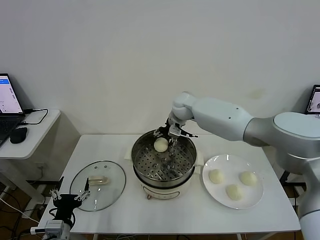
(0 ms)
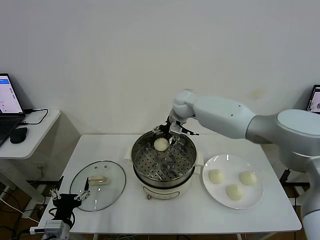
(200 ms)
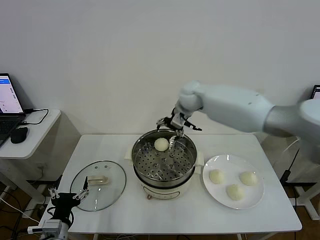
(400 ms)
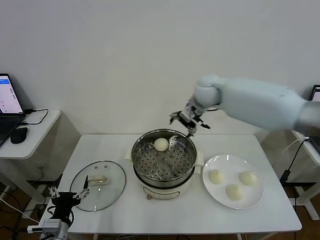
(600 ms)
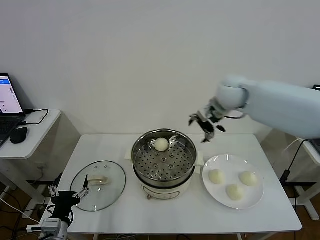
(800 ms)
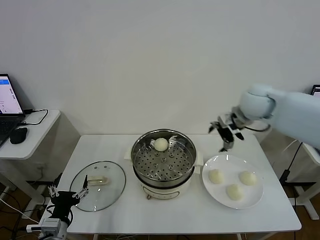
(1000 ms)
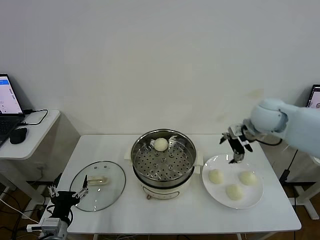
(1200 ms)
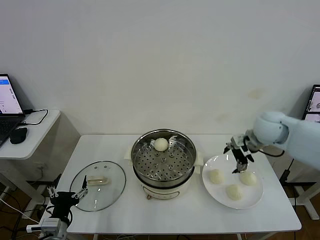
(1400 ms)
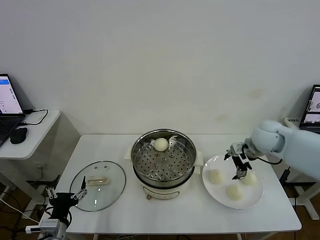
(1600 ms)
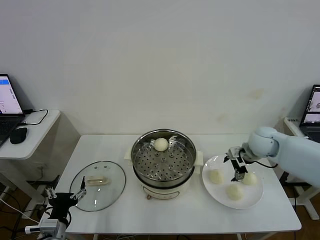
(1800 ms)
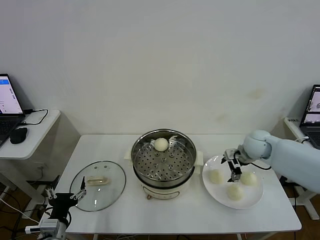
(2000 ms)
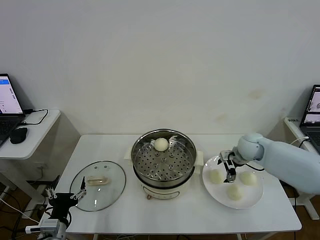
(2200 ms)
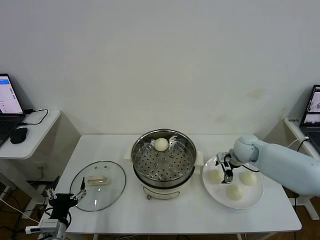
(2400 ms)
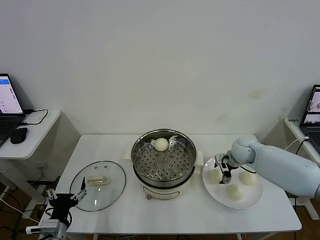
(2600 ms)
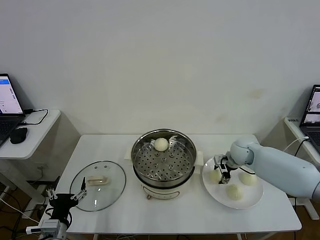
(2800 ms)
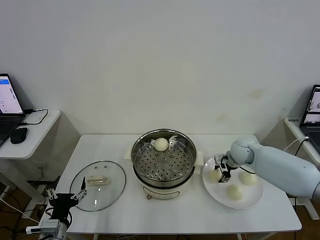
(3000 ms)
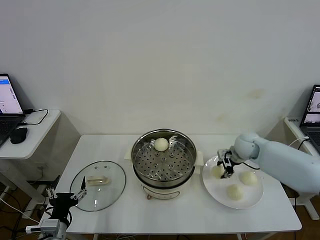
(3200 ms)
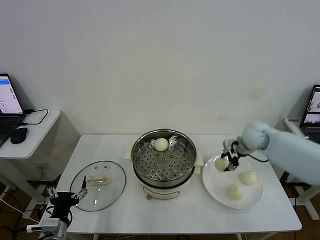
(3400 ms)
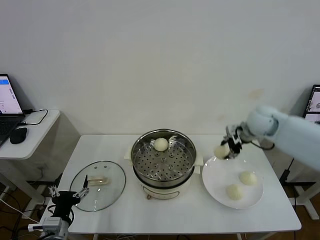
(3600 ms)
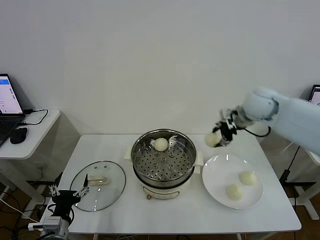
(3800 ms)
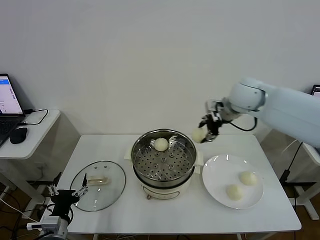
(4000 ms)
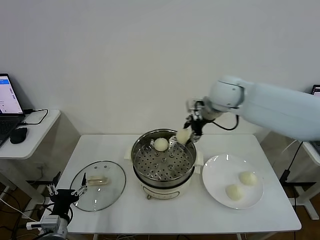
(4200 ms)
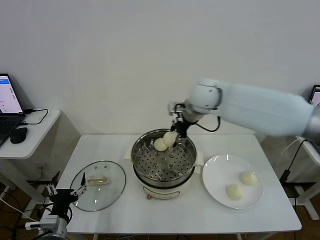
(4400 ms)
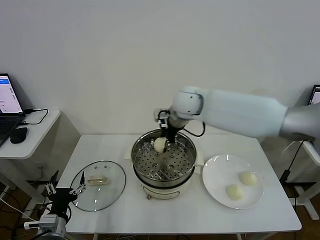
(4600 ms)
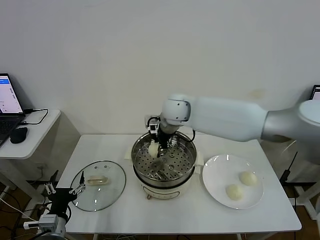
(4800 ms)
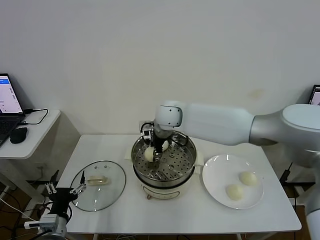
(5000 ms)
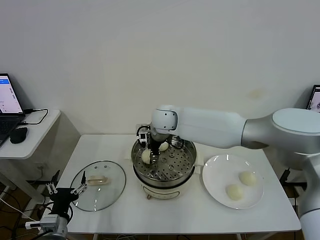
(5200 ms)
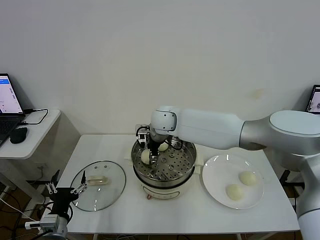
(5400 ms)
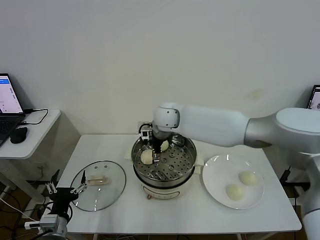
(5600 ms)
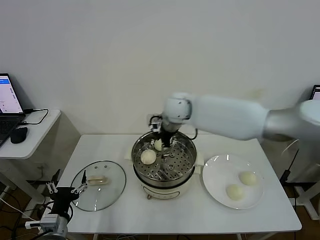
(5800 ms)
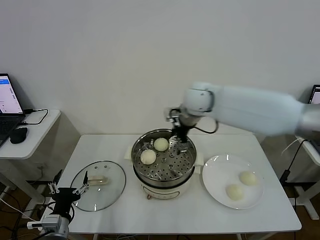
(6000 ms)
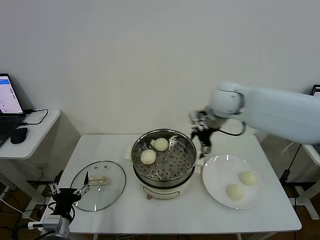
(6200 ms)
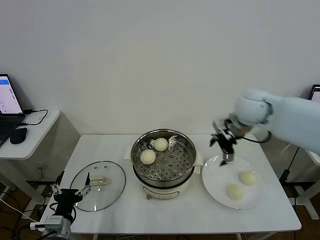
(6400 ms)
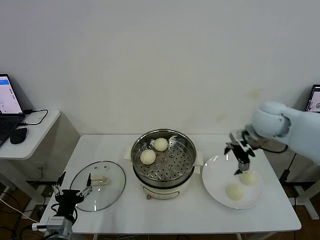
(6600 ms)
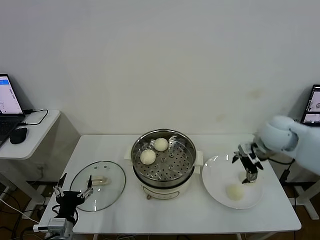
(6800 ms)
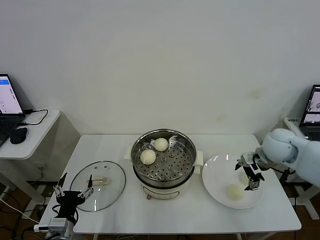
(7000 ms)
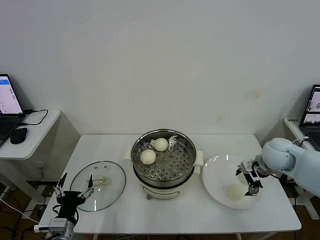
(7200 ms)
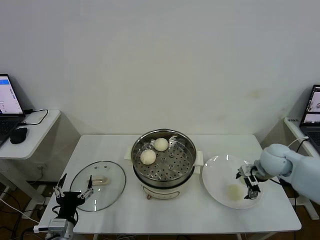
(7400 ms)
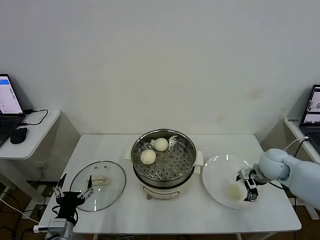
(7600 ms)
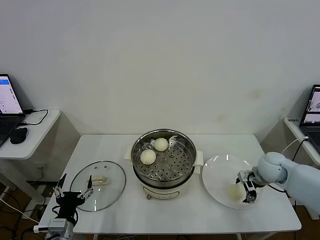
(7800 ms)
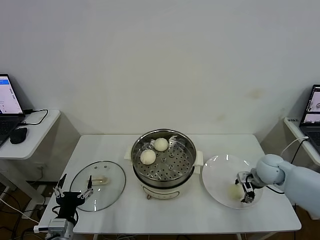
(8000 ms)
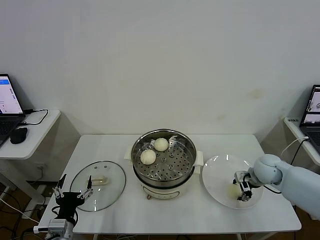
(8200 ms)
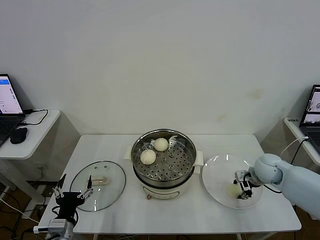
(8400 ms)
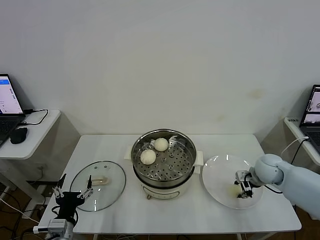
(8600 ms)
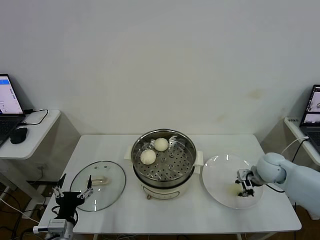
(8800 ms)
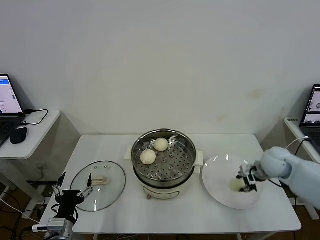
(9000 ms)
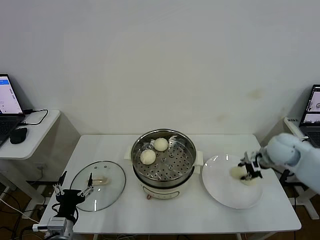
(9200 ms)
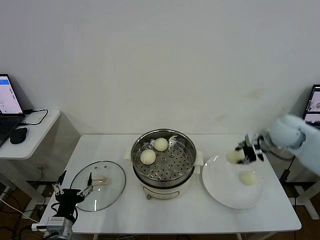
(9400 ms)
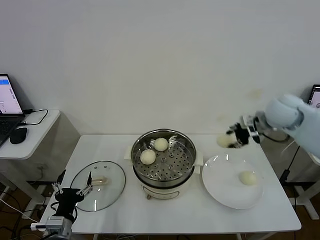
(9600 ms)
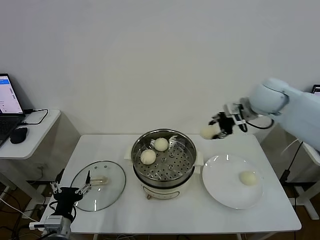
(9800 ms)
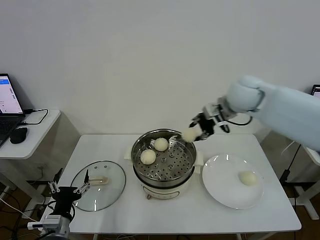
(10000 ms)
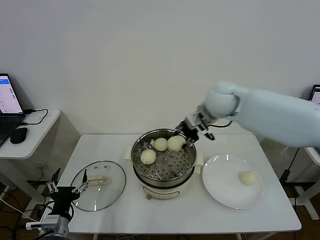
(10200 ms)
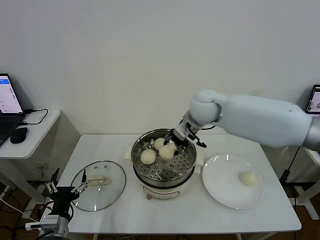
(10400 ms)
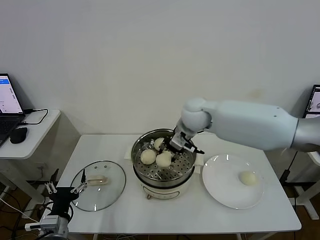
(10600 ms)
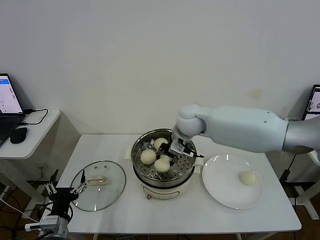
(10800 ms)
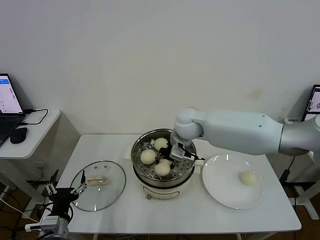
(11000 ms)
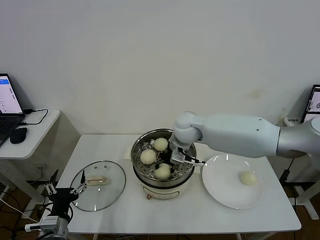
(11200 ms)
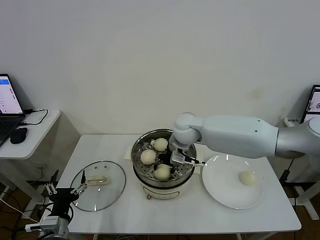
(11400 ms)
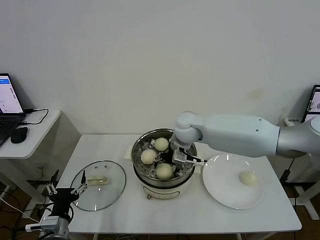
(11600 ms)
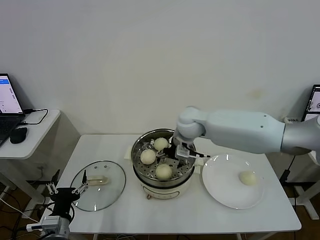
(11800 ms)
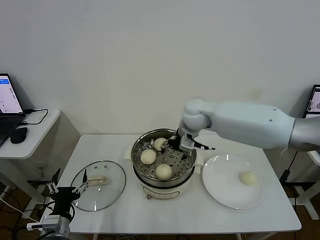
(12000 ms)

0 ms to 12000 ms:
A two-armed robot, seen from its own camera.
Task of the whole recording: take steamed baozi put them in steamer then cover it.
Step, 400 ms to 3000 ms: Grasp the baozi in the plate with right gripper.
Step, 3200 ms to 5600 ms: Place the baozi on the steamer with right gripper.
Step, 5800 ms to 8400 ms: Grasp the baozi in the plate with right gripper.
Step, 8600 ms to 11600 ms: Place the baozi on the steamer with right gripper.
0 ms to 1600 ms: The right gripper travels to the right and backward by approximately 30 cm.
1600 ms to 3000 ms: The right gripper moves downward, about 10 cm, and closes its fingers.
3000 ms to 4400 ms: The right gripper travels upward and to the left by about 30 cm.
4400 ms to 6000 ms: The right gripper goes to the left and returns, about 10 cm each way, and opens.
6000 ms to 7600 ms: The right gripper is displaced to the right, downward and backward by about 35 cm.
7600 ms to 9000 ms: The right gripper closes.
9000 ms to 10400 ms: The right gripper moves to the left and upward, roughly 30 cm.
10400 ms to 12000 ms: The right gripper opens.

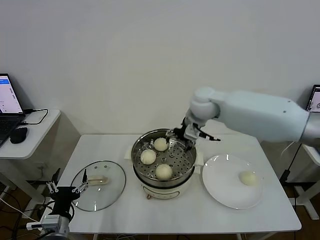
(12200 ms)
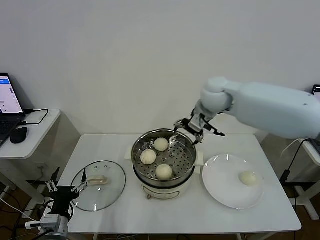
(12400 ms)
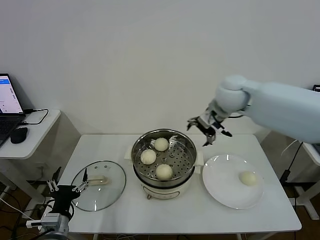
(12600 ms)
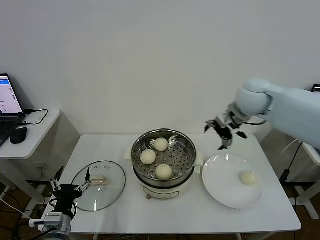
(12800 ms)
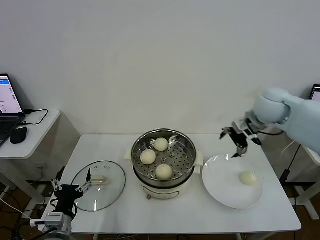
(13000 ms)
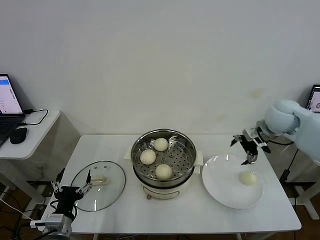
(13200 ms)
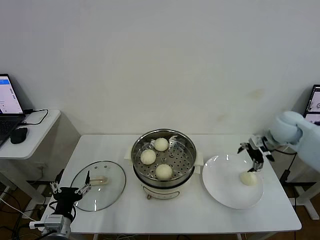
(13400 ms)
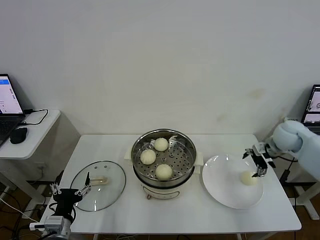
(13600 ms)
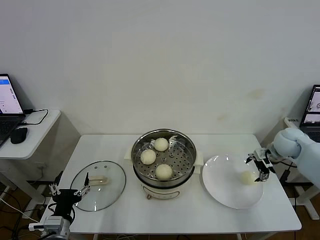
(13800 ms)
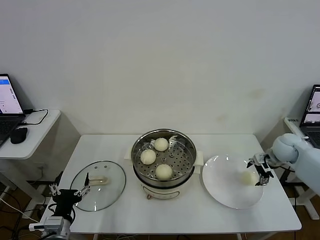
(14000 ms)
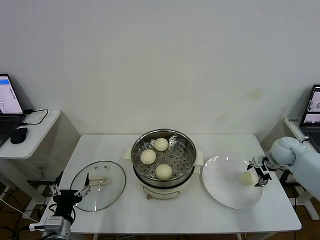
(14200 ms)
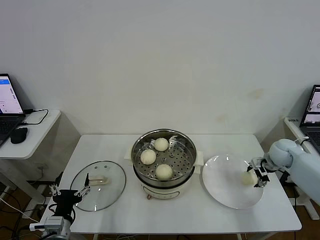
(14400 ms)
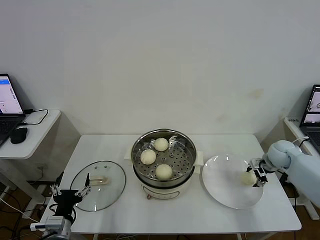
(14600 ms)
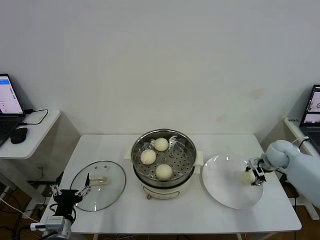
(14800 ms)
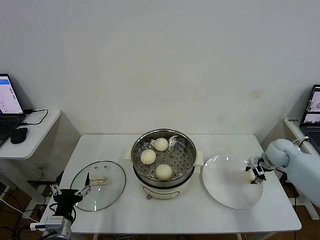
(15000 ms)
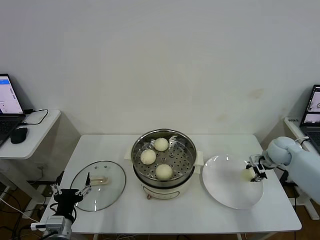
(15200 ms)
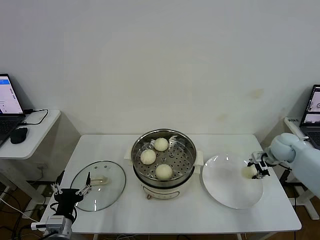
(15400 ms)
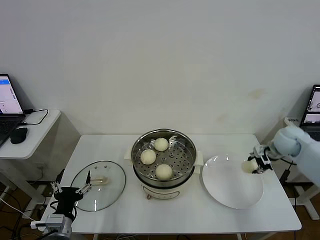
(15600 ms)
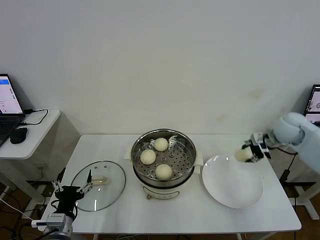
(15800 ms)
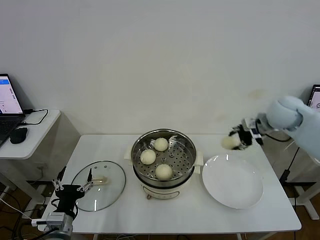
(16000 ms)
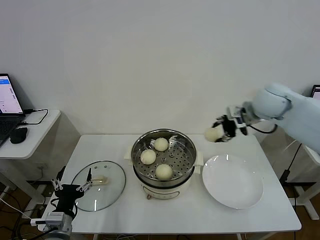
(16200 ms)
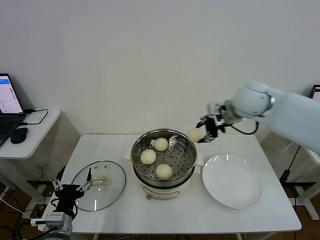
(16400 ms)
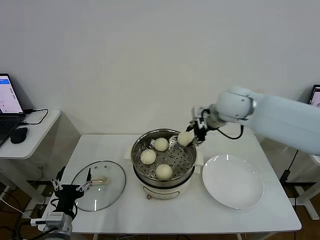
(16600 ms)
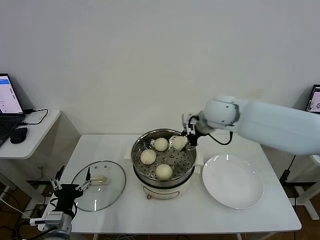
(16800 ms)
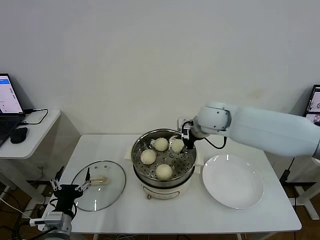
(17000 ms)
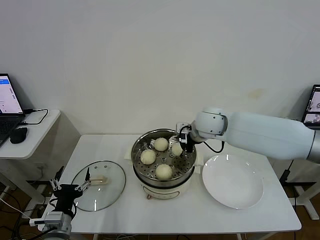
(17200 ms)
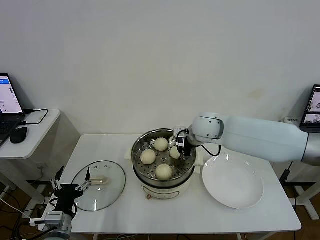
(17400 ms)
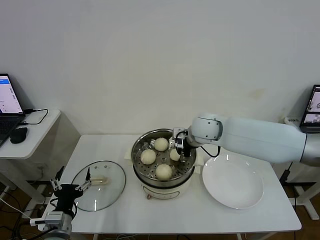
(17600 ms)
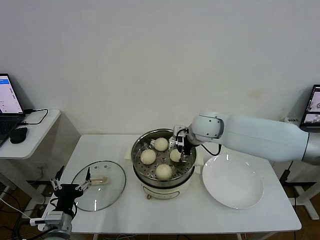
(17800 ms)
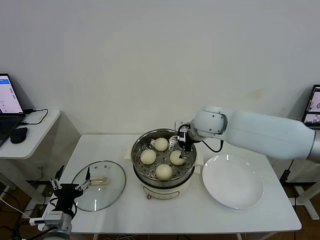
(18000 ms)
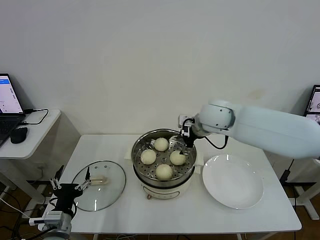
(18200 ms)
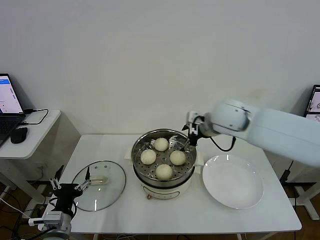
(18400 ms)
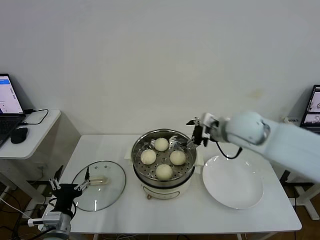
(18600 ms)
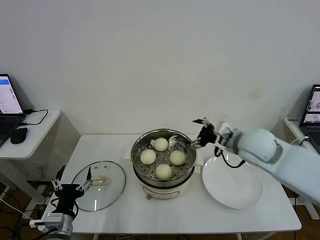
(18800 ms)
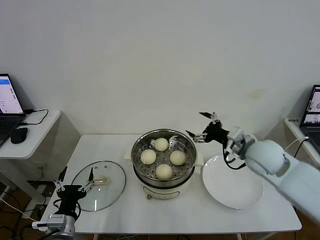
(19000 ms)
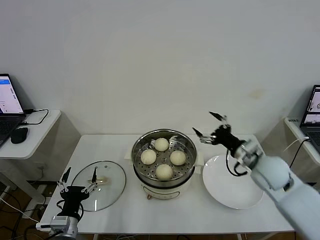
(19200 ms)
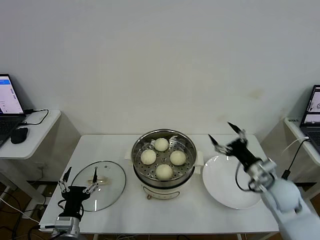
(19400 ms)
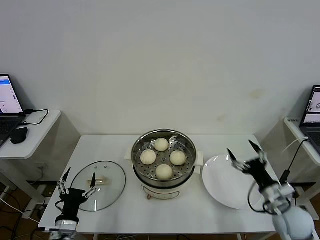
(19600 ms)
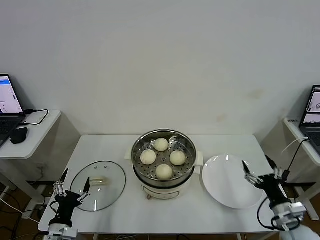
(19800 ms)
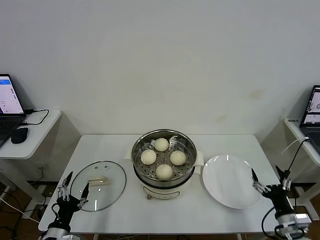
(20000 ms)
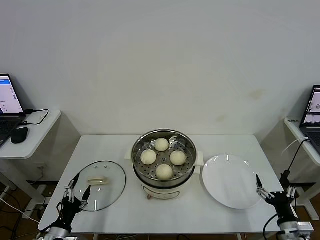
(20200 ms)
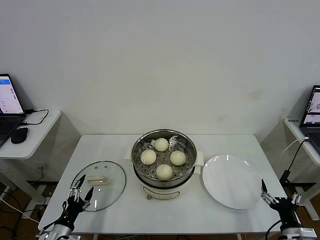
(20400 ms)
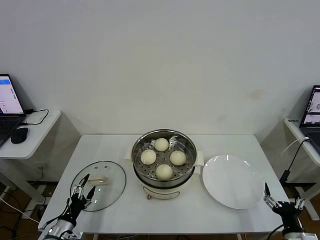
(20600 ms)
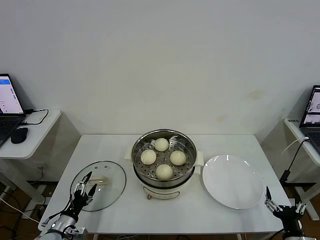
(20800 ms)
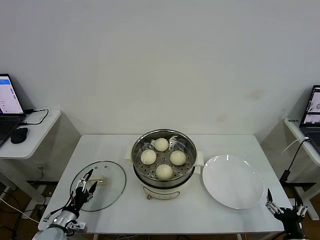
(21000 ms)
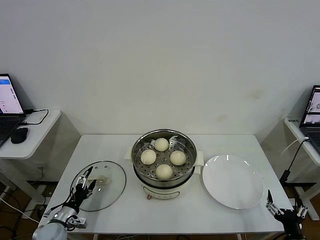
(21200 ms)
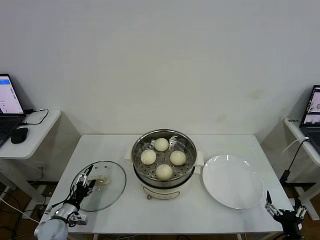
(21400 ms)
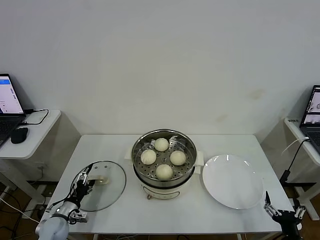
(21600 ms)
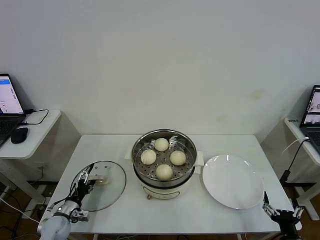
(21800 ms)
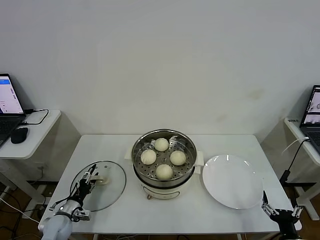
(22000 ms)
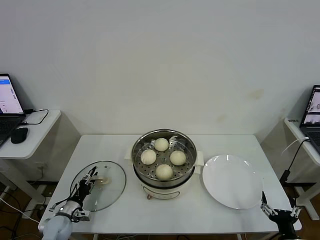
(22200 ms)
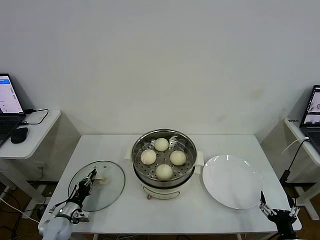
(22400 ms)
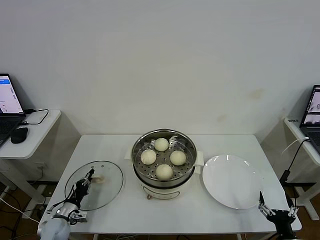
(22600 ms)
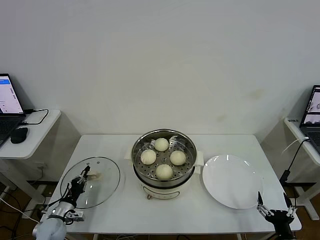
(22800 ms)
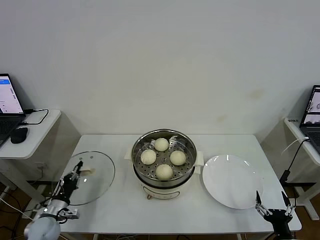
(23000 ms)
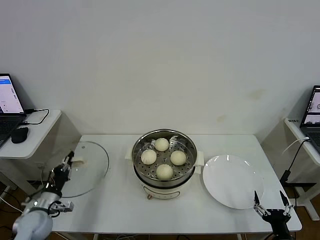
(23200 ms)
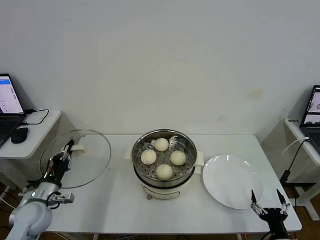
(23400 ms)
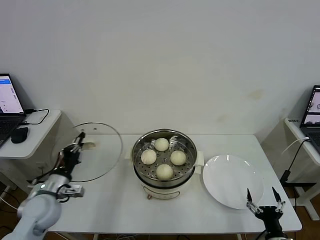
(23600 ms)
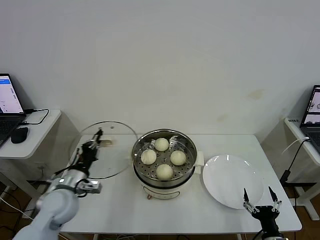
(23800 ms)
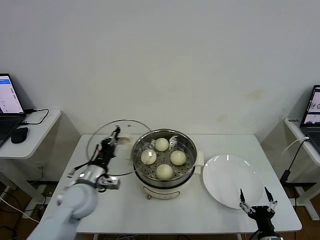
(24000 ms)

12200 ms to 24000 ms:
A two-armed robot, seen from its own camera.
Task of the whole recording: take steamed baozi put them in steamer then cover it.
Step, 12200 ms to 15000 ms: Grasp the baozi in the plate with right gripper.
Step, 15400 ms to 17800 ms: Place the baozi on the steamer with right gripper.
Step, 18200 ms to 22800 ms: Grasp the pot lid with left gripper.
12200 ms to 13600 ms: The right gripper heads to the right, covering about 30 cm.
13600 ms to 15200 ms: The right gripper moves downward, approximately 10 cm, and closes up.
15200 ms to 16600 ms: The right gripper travels to the left and upward by roughly 30 cm.
16600 ms to 18200 ms: The right gripper opens.
18200 ms to 19600 ms: The right gripper shifts approximately 35 cm to the right, backward and downward.
19600 ms to 21000 ms: The right gripper travels backward and downward by about 15 cm. The left gripper goes approximately 15 cm downward, to the left and forward.
21000 ms to 22600 ms: The left gripper ends up roughly 5 cm from where it was, and closes.
22600 ms to 24000 ms: The left gripper moves upward and to the right, some 25 cm.
